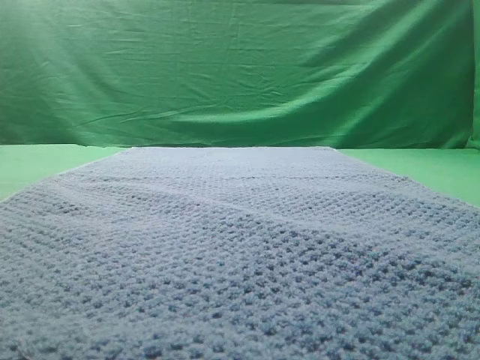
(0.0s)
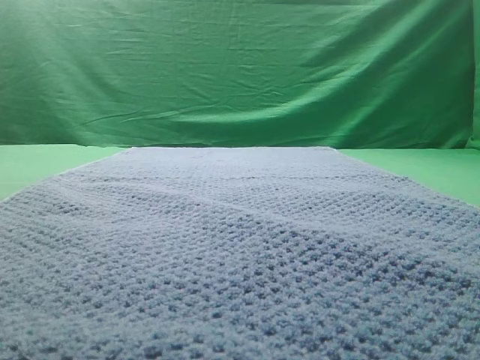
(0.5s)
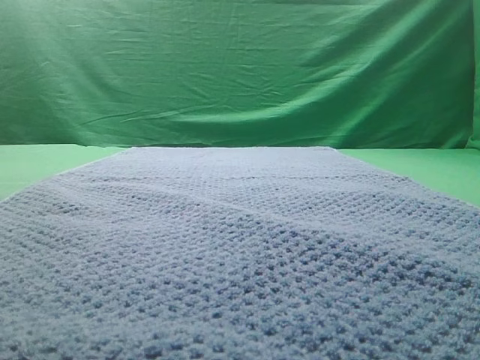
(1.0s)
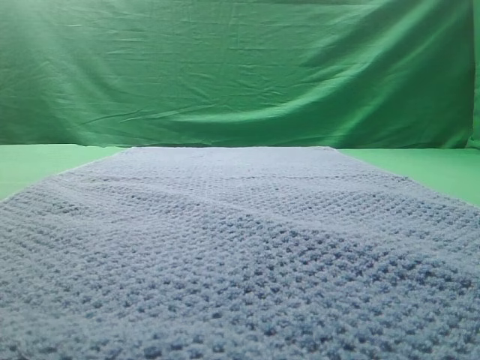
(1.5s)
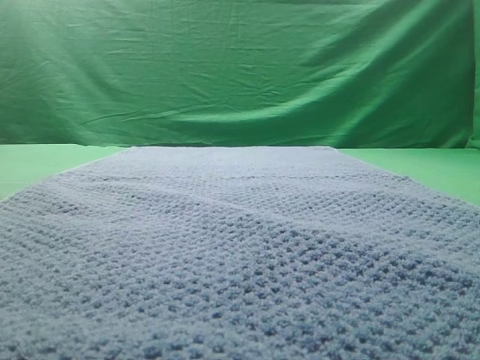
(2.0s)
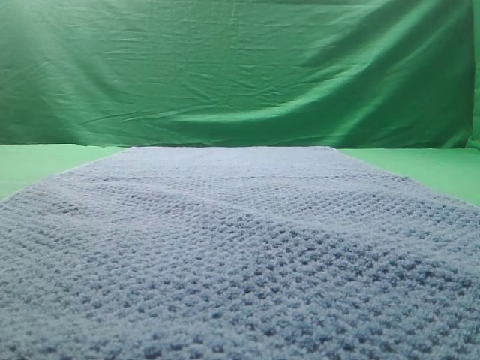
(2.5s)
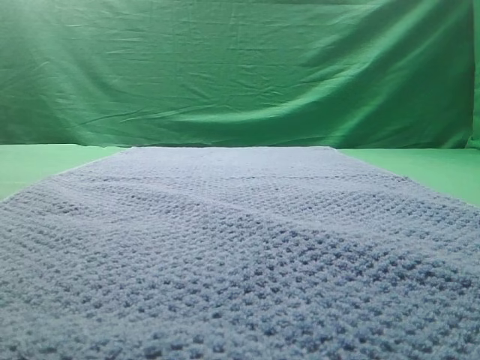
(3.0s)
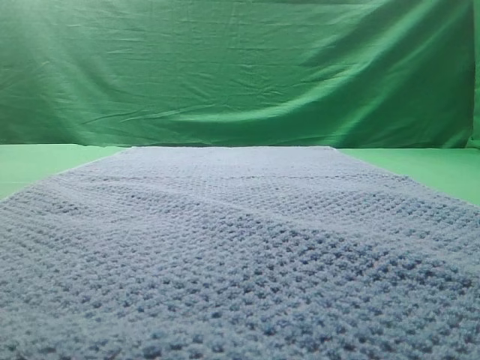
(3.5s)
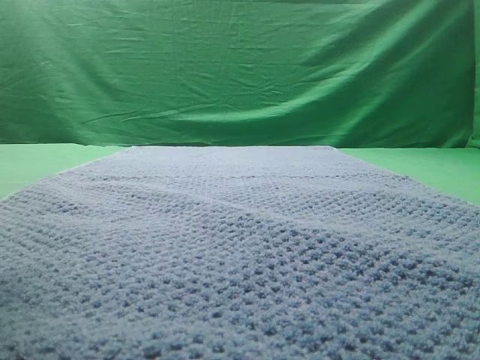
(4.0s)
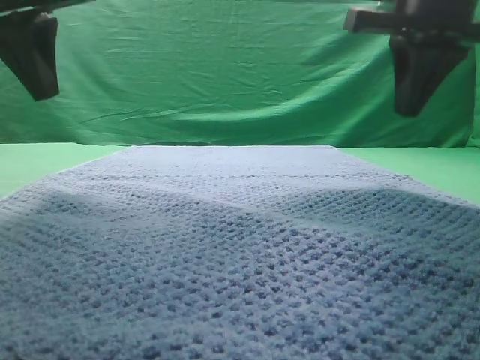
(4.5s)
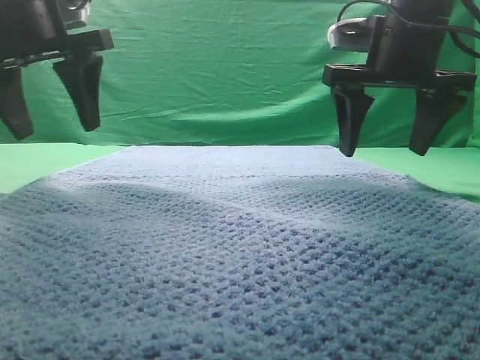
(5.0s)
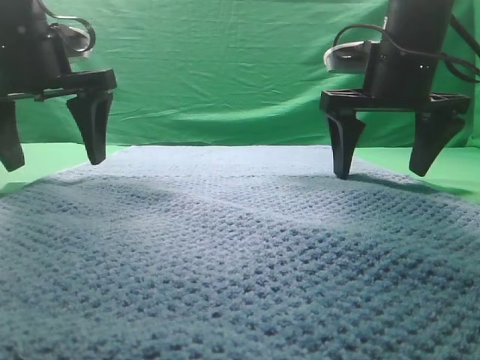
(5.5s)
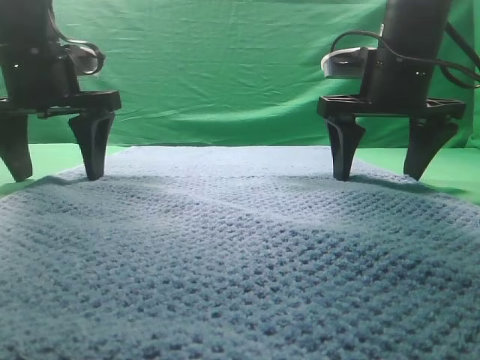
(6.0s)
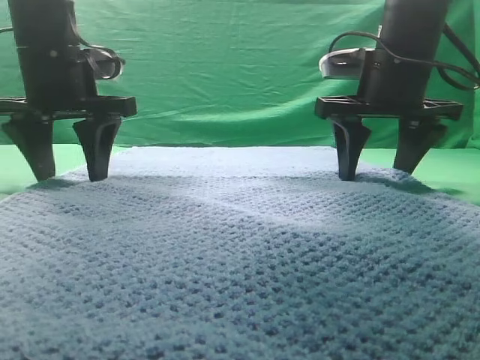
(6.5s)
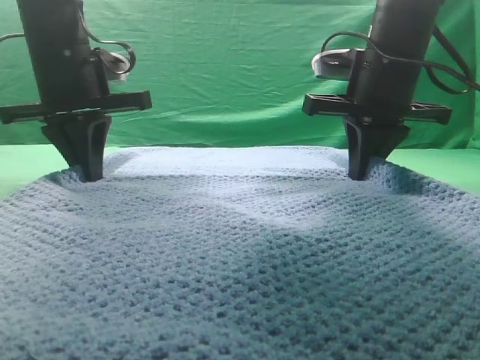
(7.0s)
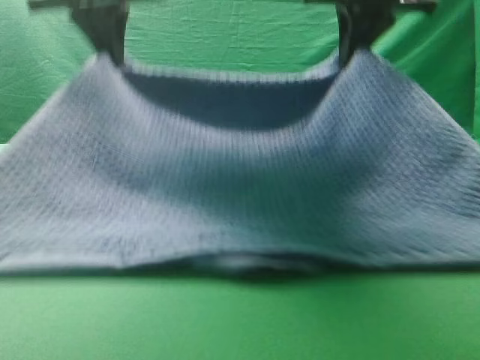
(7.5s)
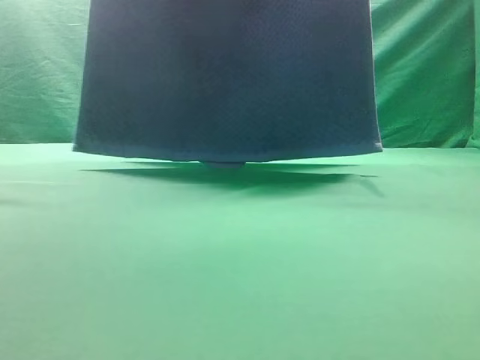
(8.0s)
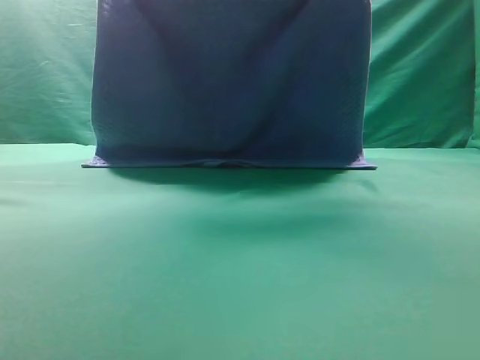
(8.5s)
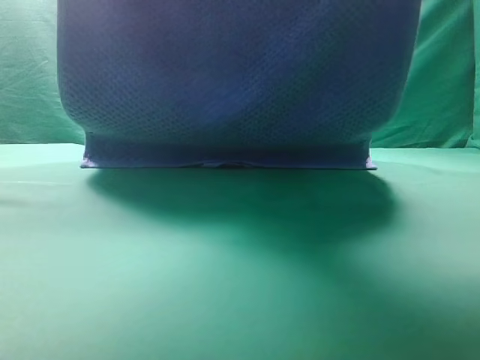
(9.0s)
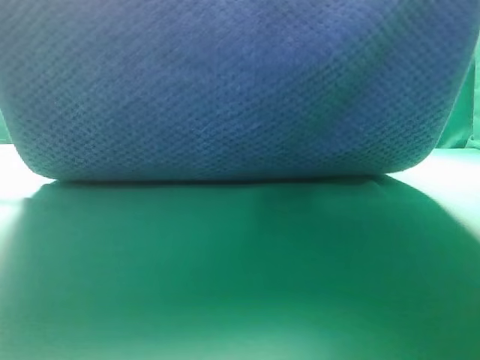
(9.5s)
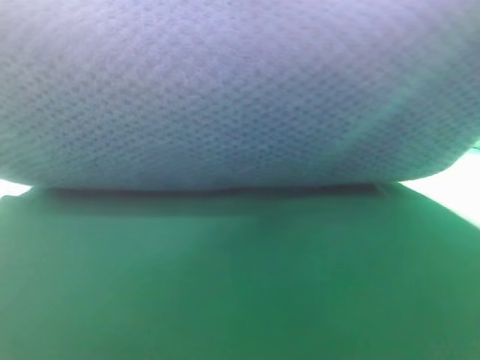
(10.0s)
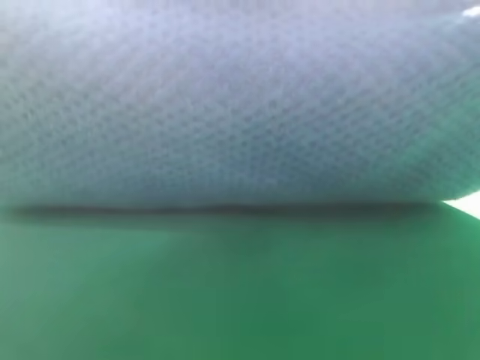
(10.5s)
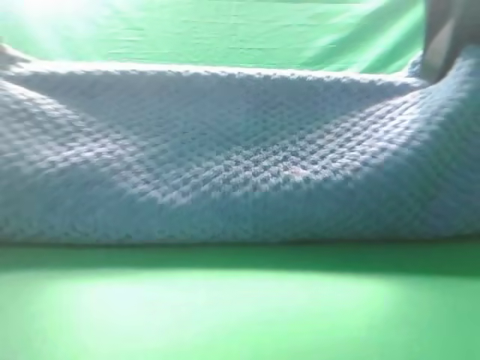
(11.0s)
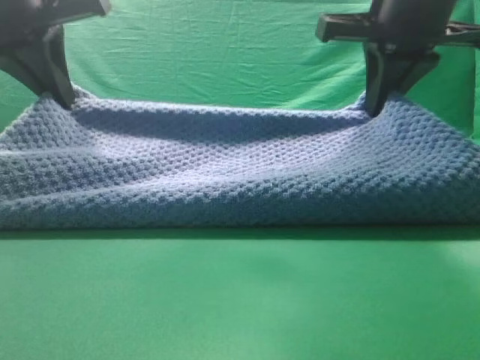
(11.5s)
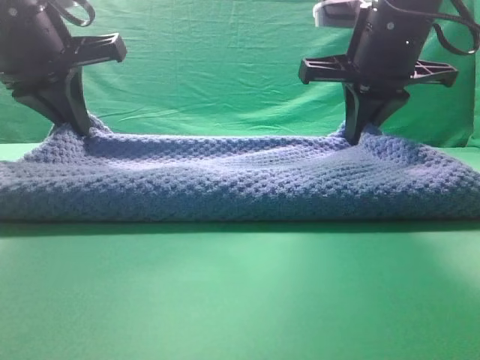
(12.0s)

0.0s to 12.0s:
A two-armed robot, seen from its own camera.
Task of the whole recording: fold the towel on the table twice.
Step, 0.0s to 7.5s: pick up the towel with two arm.

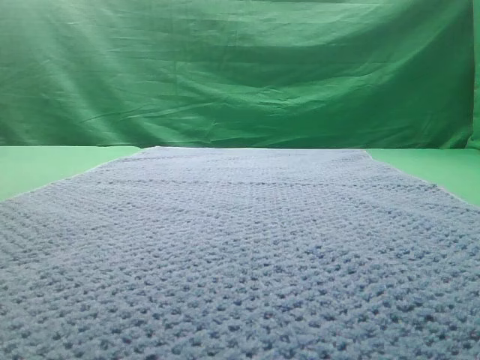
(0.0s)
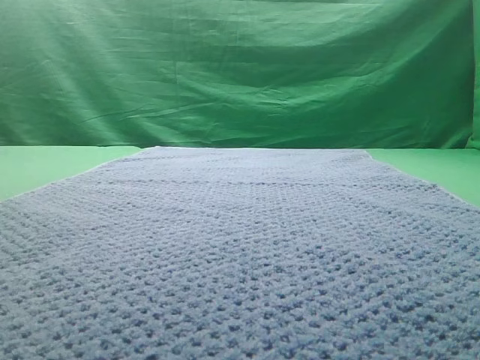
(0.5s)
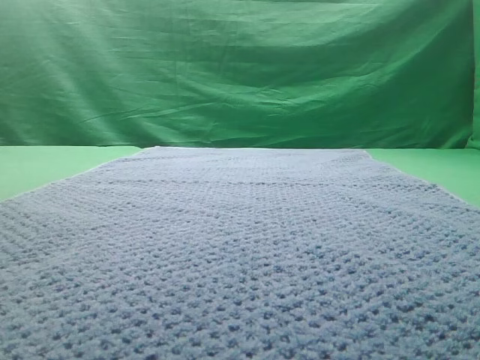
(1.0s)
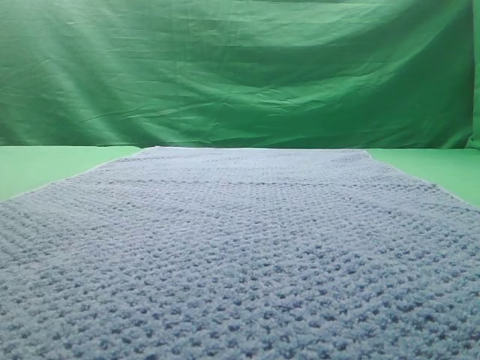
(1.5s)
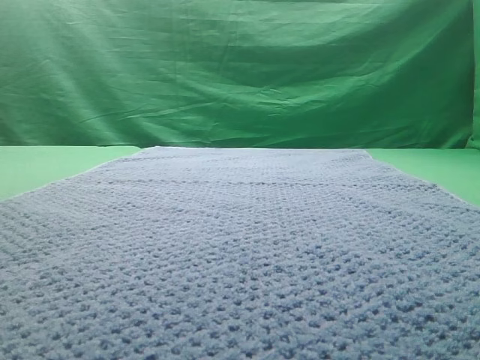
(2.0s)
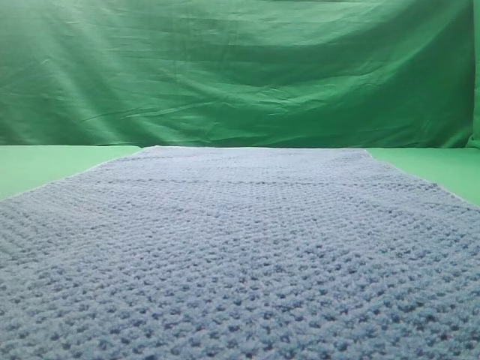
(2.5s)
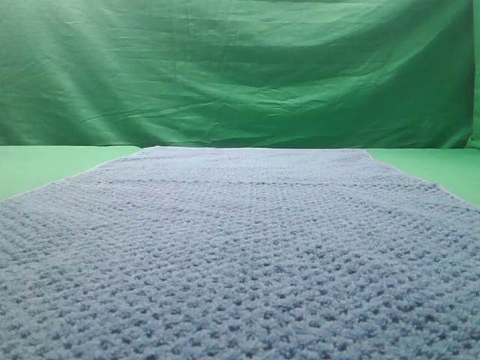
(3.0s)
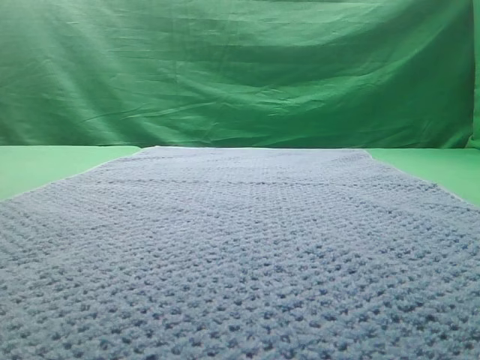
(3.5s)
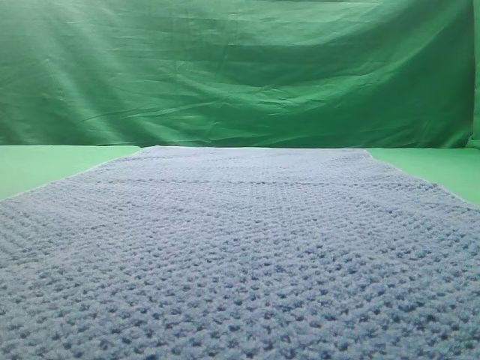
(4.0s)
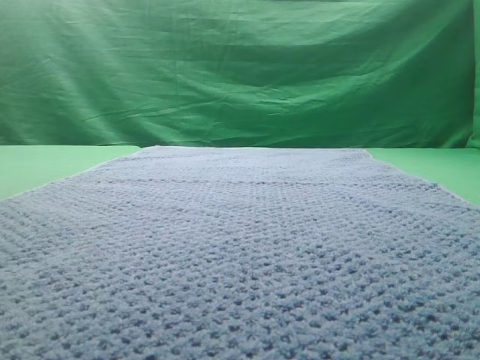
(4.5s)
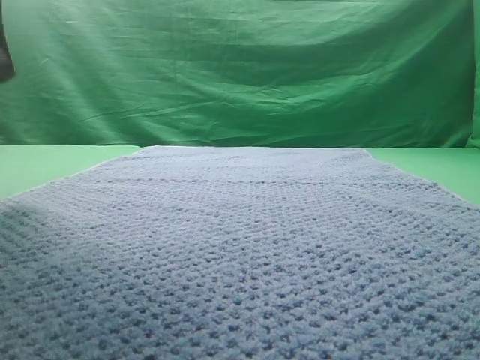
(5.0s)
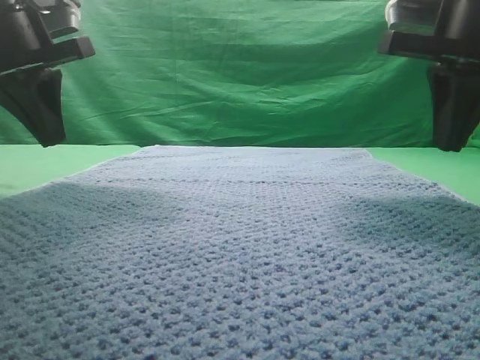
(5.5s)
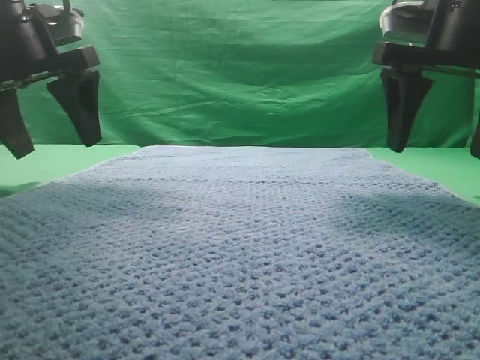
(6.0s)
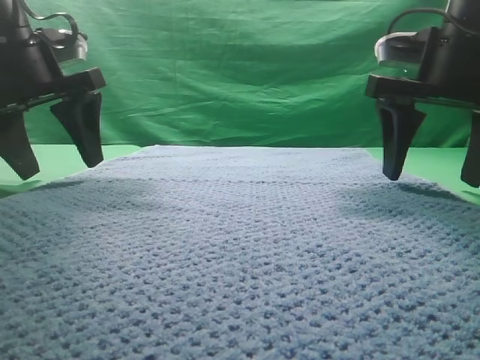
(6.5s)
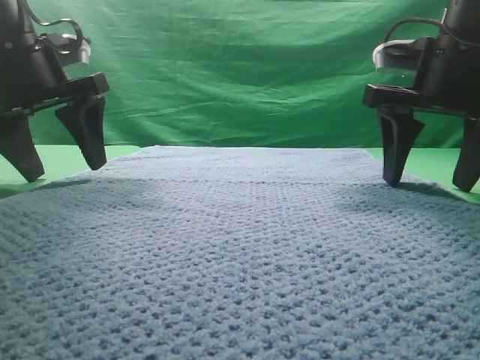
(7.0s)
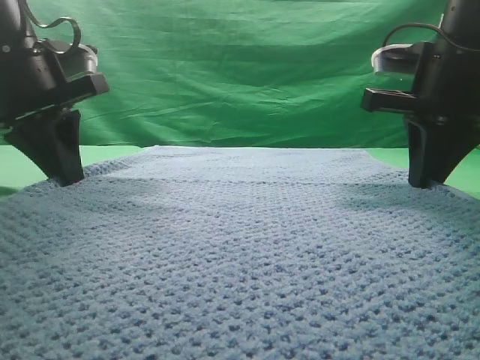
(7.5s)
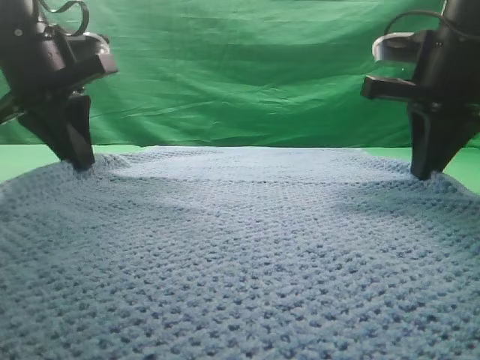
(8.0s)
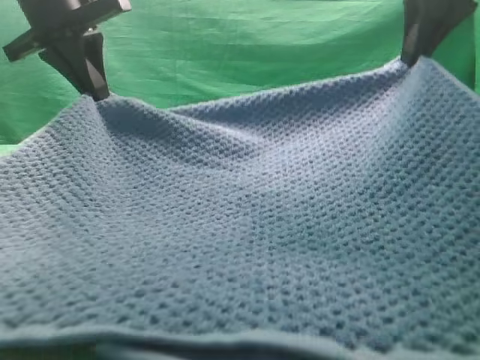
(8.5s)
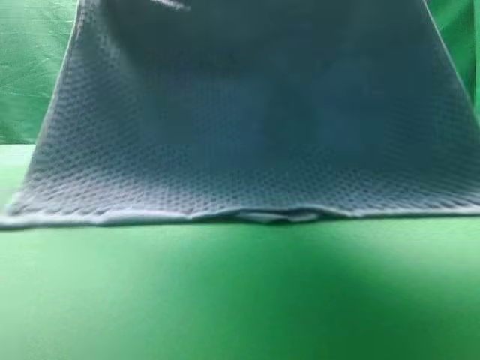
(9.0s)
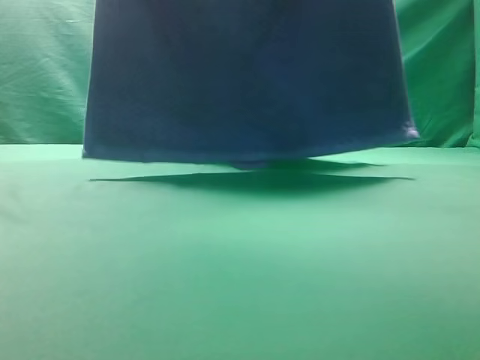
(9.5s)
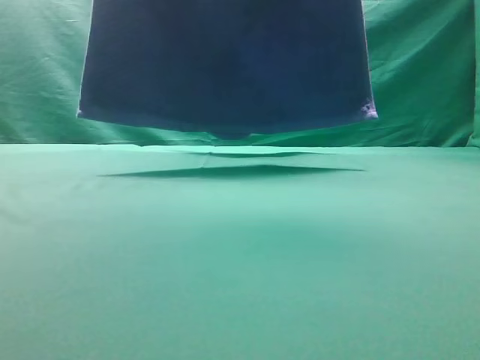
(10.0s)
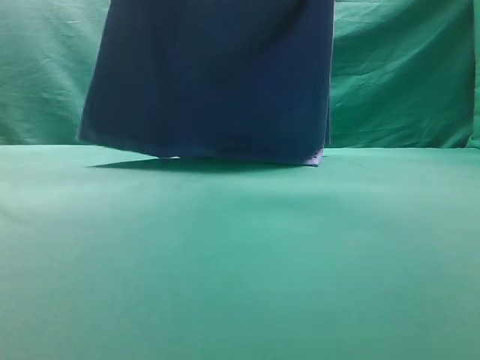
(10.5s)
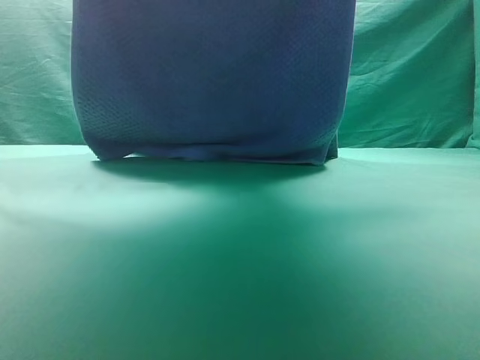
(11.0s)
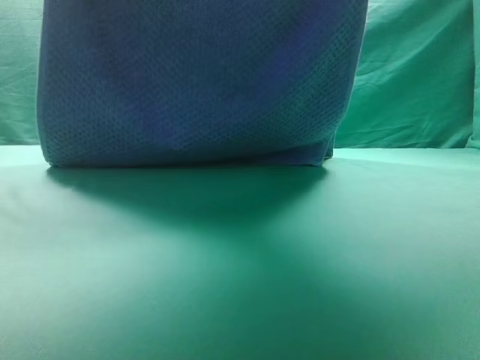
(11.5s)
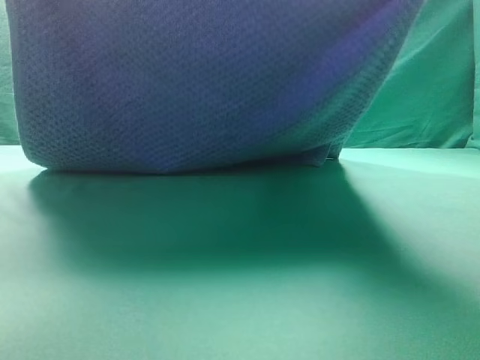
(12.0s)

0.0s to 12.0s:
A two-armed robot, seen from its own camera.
Task of the whole recording: fold the towel on the table twice.
Step, 0.0s to 9.5s: pick up the towel with two arm.

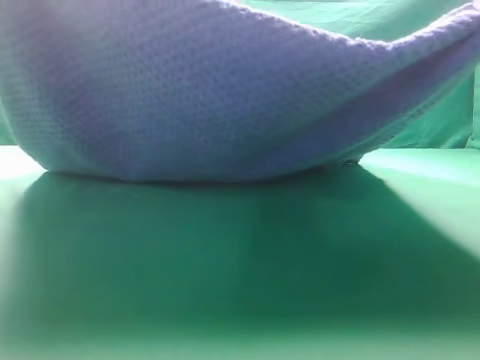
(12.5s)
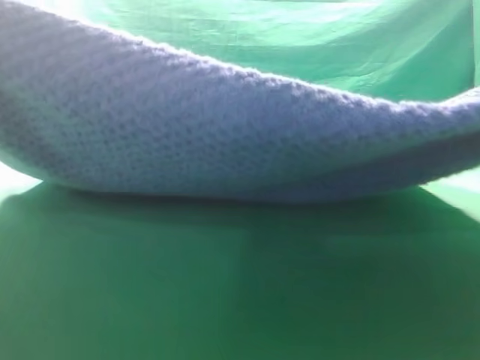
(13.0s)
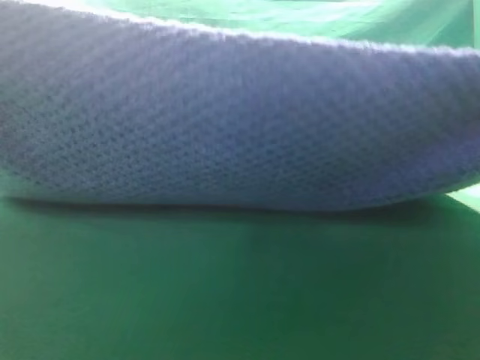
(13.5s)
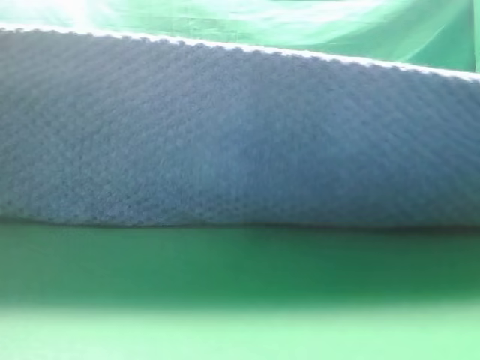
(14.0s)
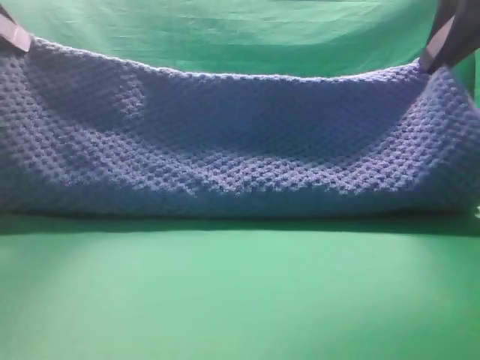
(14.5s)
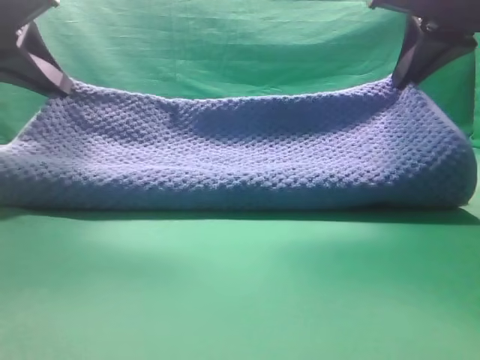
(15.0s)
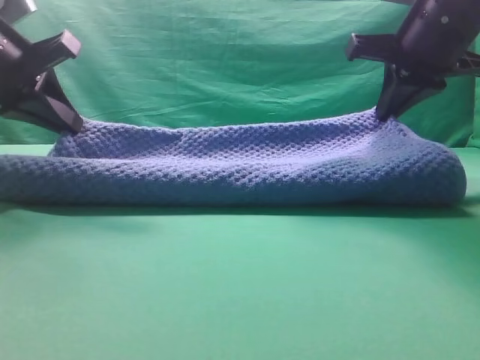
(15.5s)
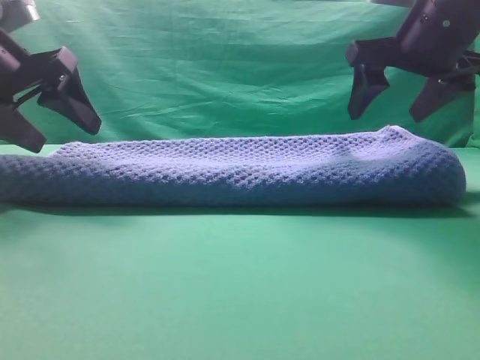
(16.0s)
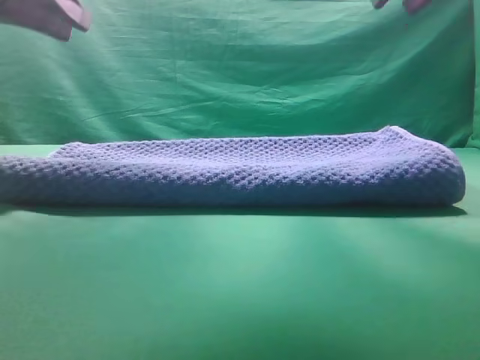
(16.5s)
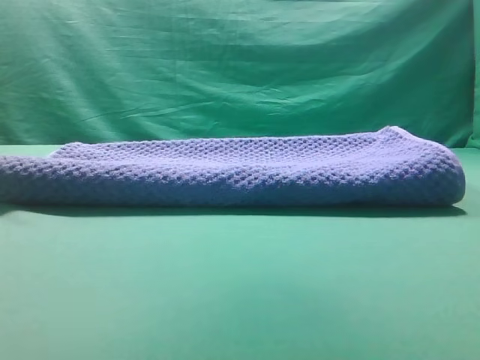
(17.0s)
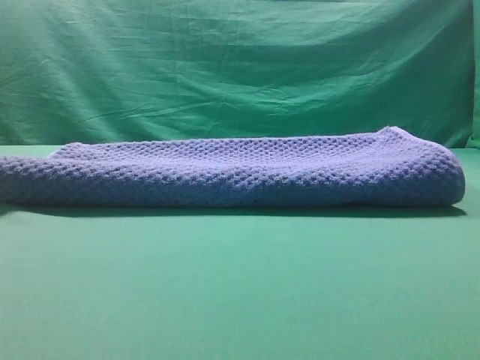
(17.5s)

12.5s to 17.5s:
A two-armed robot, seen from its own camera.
Task of the whole recording: fold the towel on the table twice.
Step, 12.5s to 16.0s: Fold the towel twice on the table.
